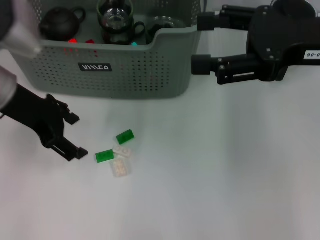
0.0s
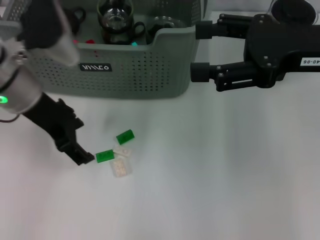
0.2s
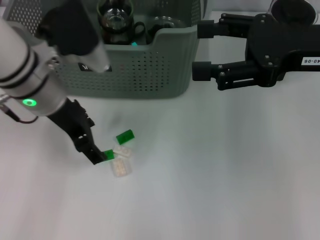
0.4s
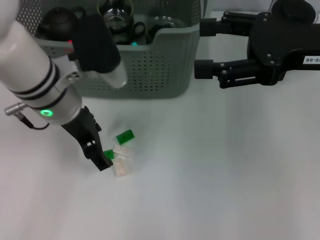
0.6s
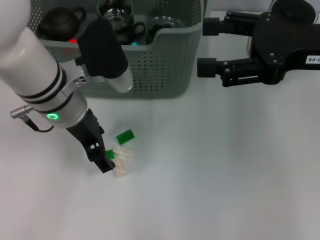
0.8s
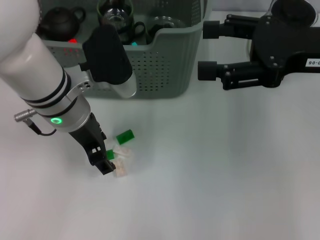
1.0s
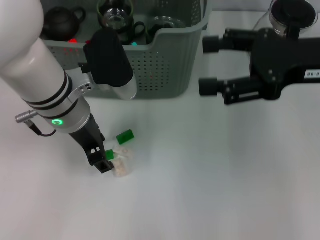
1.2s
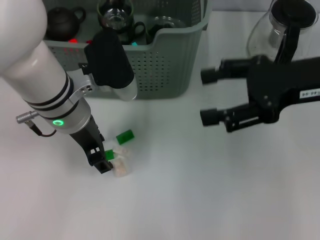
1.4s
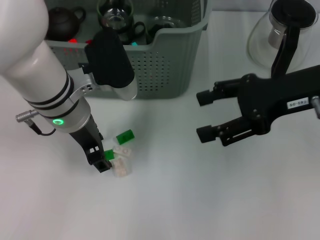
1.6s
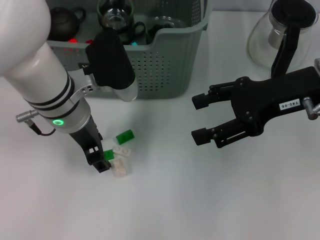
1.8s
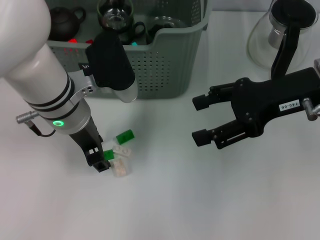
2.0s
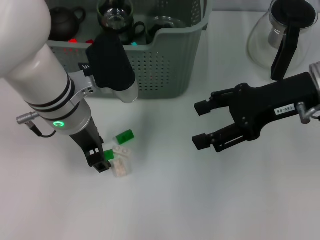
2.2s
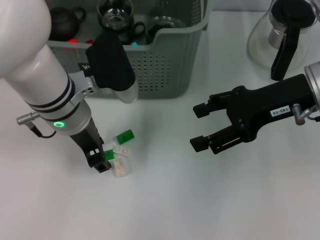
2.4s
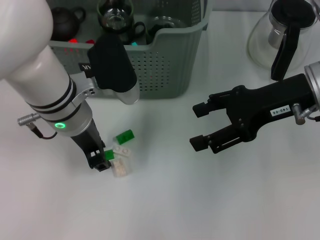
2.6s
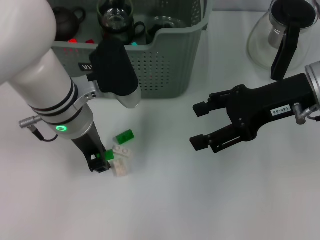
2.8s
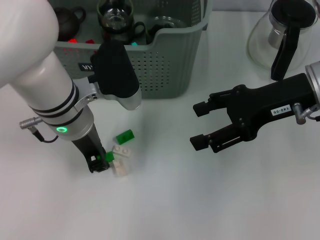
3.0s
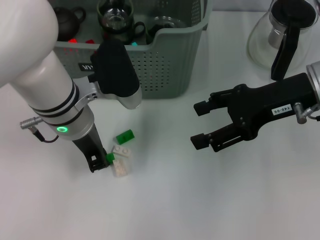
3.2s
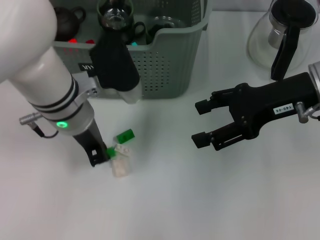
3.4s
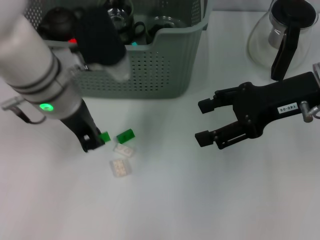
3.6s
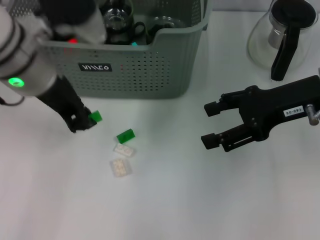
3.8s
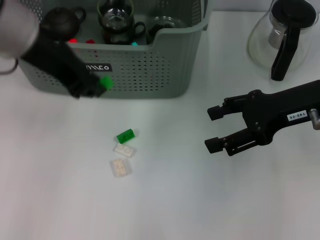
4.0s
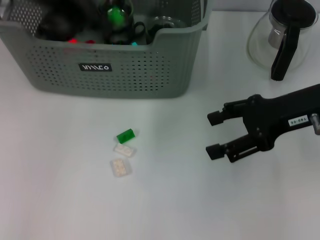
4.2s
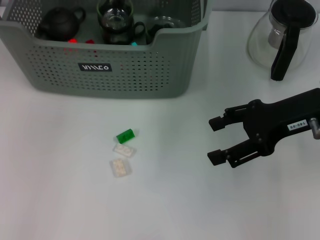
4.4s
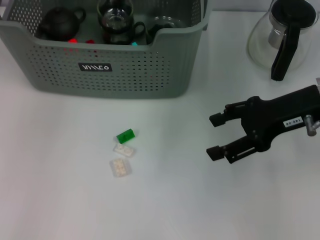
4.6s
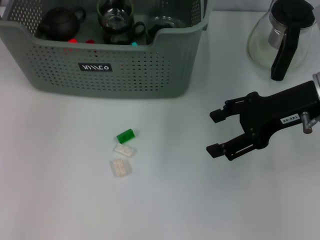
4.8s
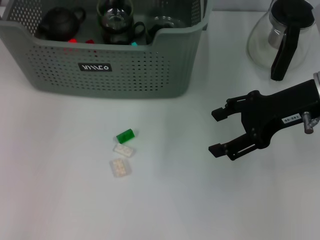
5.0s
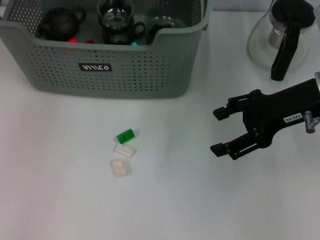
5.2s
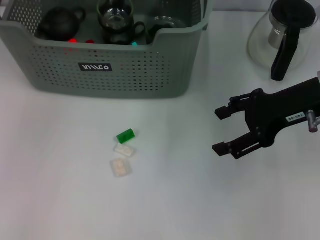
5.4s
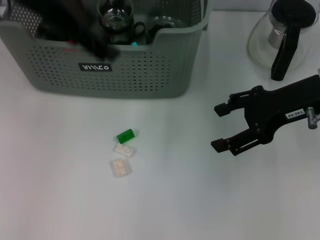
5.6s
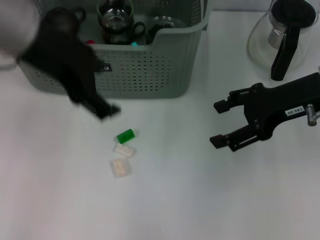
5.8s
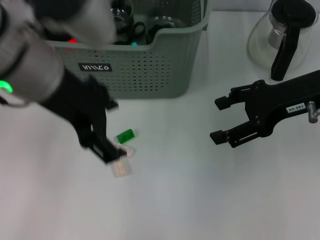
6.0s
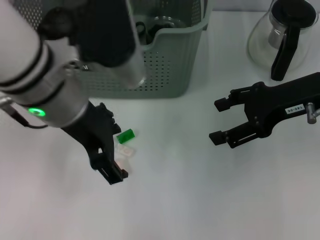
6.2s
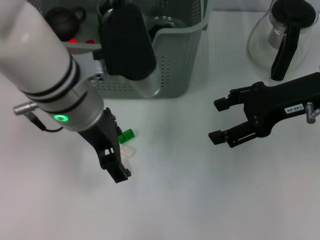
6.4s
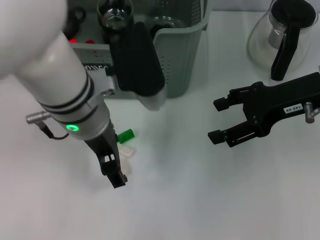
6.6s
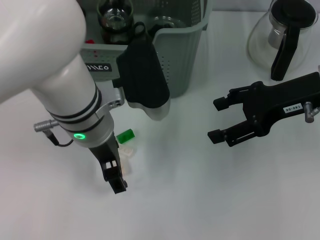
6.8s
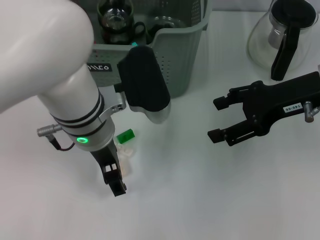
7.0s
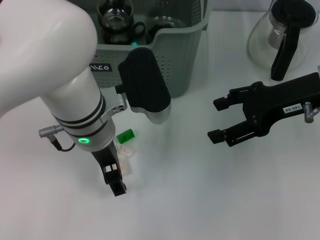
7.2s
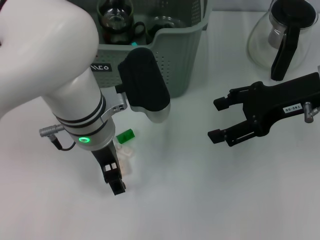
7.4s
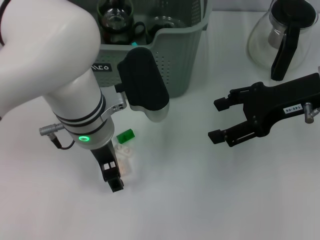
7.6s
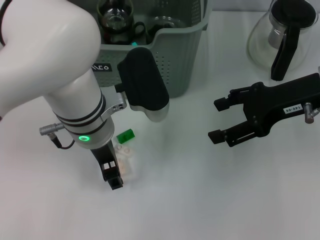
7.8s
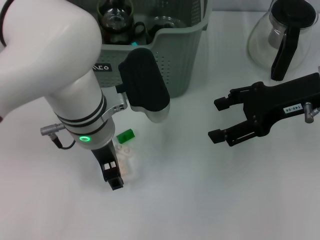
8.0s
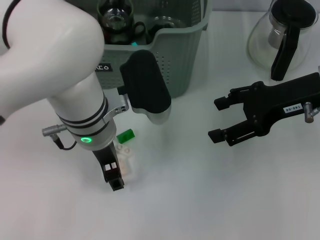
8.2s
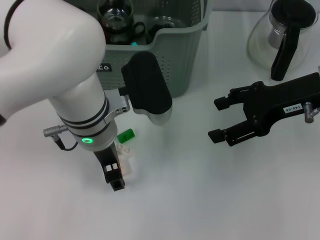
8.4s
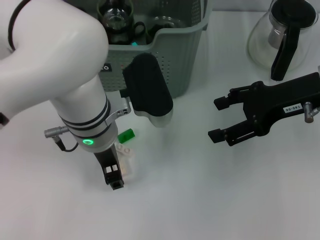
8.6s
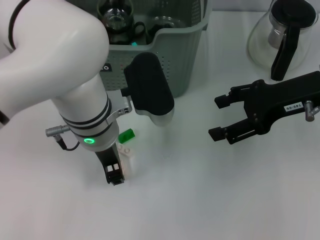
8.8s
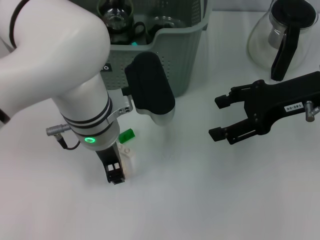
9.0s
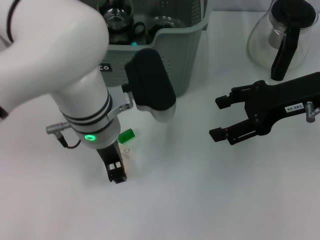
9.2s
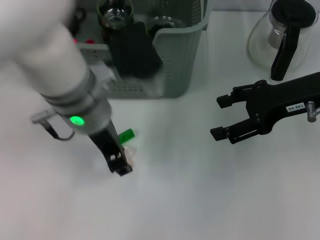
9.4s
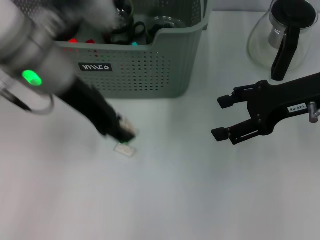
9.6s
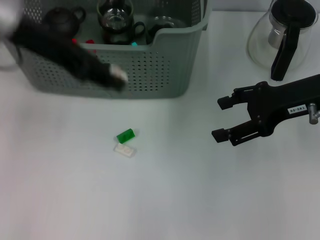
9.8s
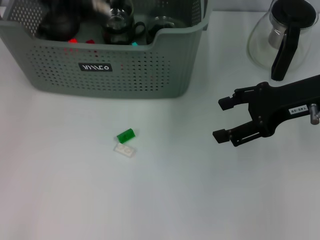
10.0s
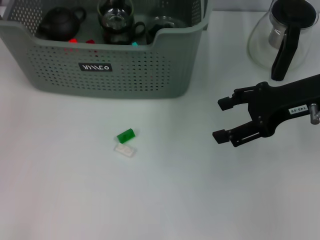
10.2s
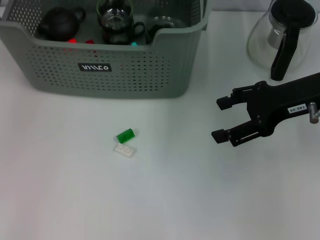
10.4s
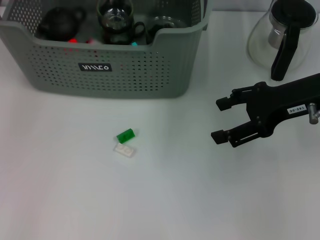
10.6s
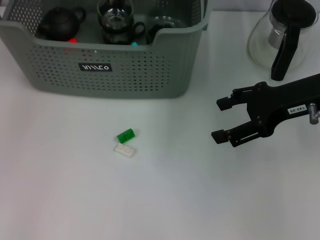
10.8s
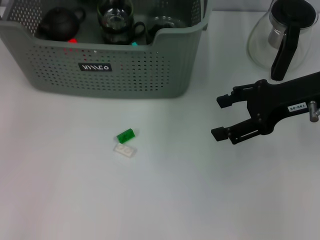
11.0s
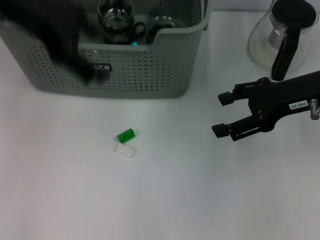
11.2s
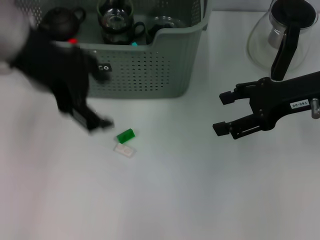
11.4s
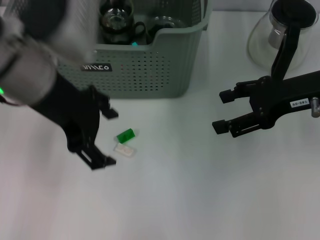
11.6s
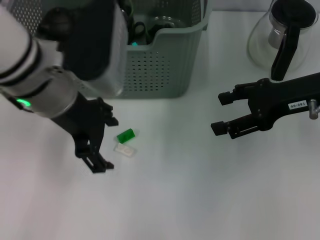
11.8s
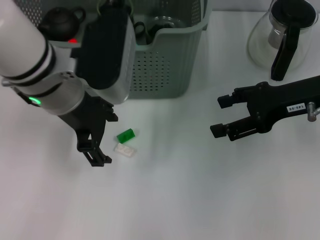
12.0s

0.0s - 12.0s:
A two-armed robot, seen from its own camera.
Task of the whole recording: pick up the teacup on the table and place it into the storage bin, pick up the block on the table and place it into the storage bin.
Step, 0.0s - 3.2s: Grasp the green block with left gripper.
Step, 3.4s - 4.8s: Place the green block in the storage box with left gripper.
Step, 5.2s - 9.0s: Grasp the white block with left gripper.
Step, 9.2s - 10.6s: Place the white block in the storage box with left gripper.
0.0s - 1.6s: The left gripper heads to the right, covering roughly 10 cm.
1.6s - 3.0s: The left gripper closes.
3.0s - 4.4s: The left gripper is displaced upward by approximately 20 cm.
4.4s - 6.0s: The left gripper heads backward and downward, covering roughly 15 cm, and opens its fingers.
6.0s - 7.6s: The left gripper moves downward and to the right, roughly 15 cm.
7.6s - 9.0s: The left gripper closes up.
9.0s - 10.4s: The left gripper shifts some 30 cm upward, to the left and forward.
10.4s - 12.0s: The left gripper goes approximately 20 cm downward, backward and to the right, and opens its fingers.

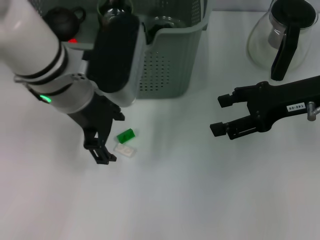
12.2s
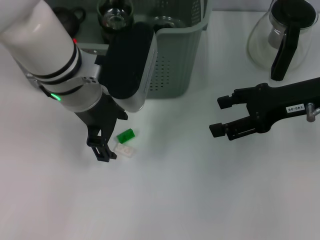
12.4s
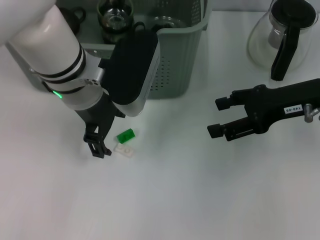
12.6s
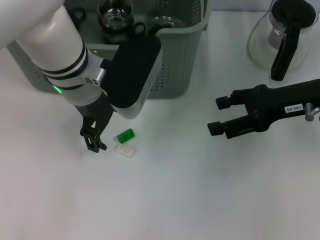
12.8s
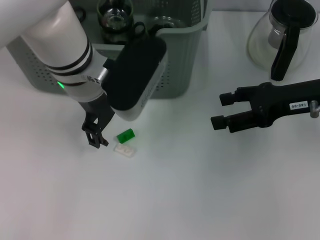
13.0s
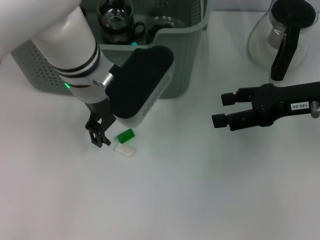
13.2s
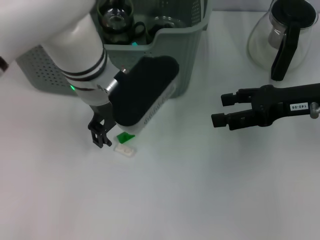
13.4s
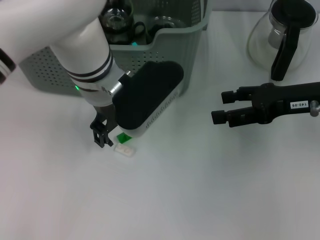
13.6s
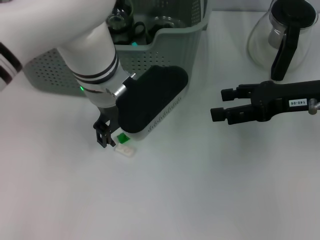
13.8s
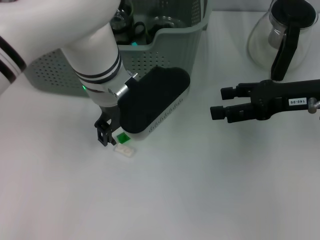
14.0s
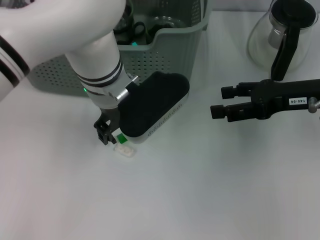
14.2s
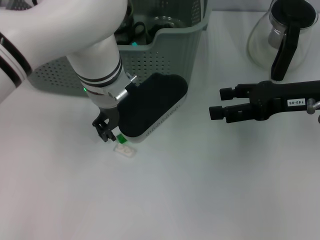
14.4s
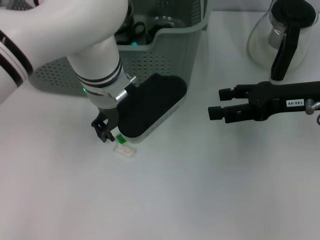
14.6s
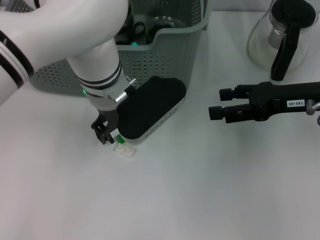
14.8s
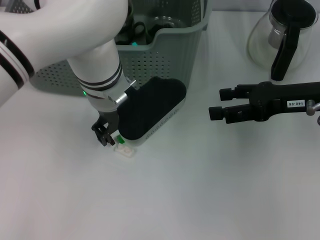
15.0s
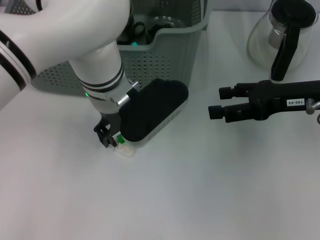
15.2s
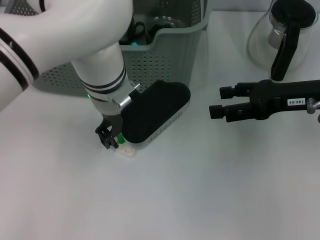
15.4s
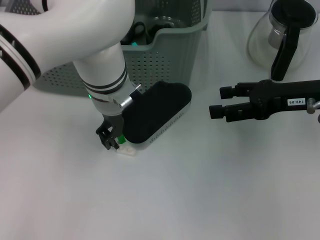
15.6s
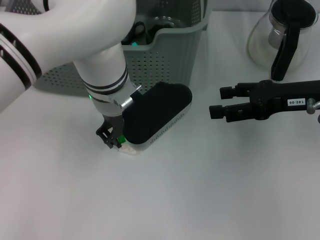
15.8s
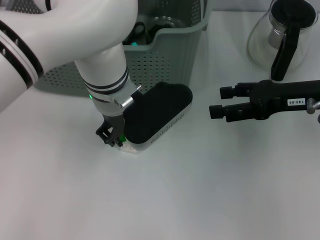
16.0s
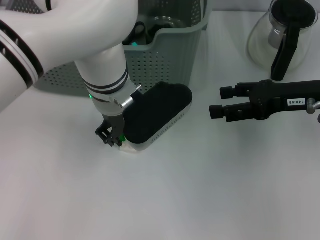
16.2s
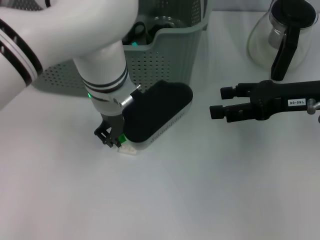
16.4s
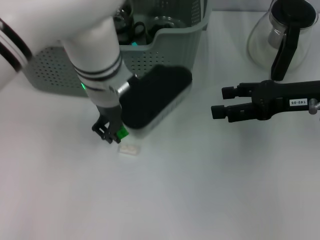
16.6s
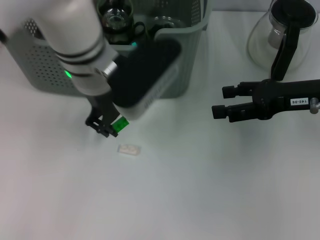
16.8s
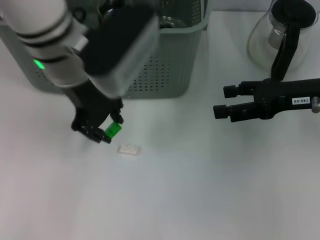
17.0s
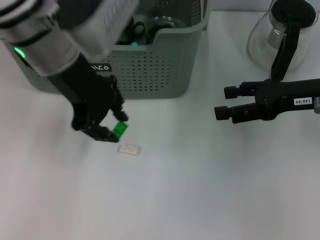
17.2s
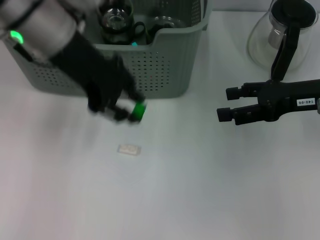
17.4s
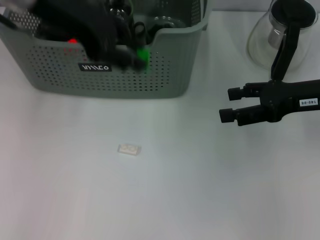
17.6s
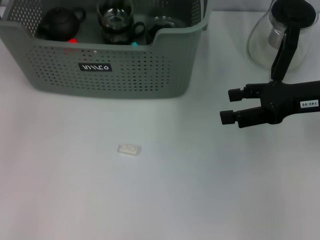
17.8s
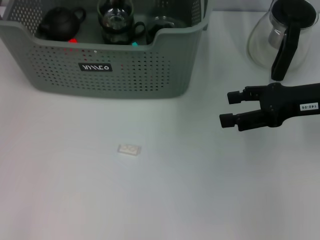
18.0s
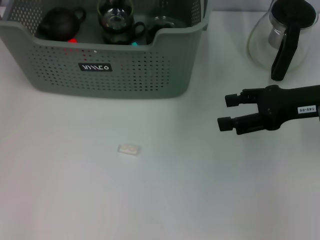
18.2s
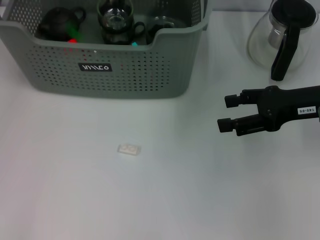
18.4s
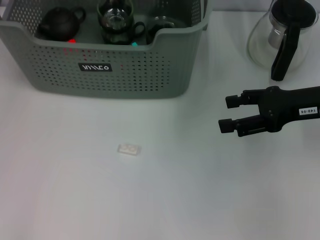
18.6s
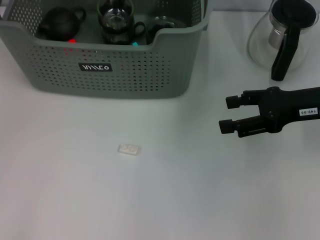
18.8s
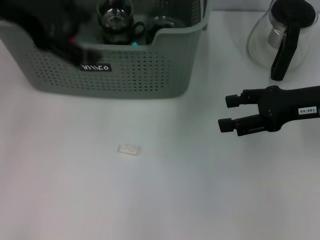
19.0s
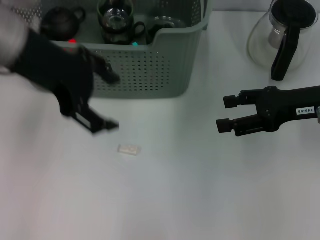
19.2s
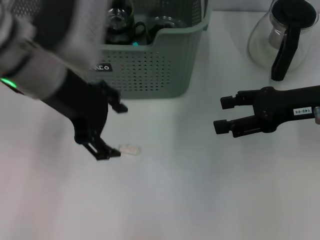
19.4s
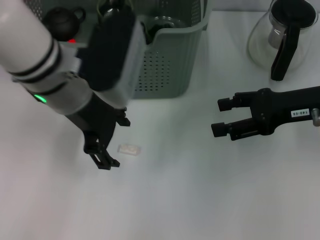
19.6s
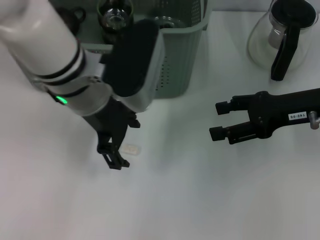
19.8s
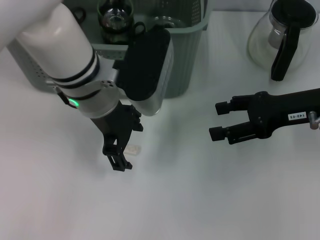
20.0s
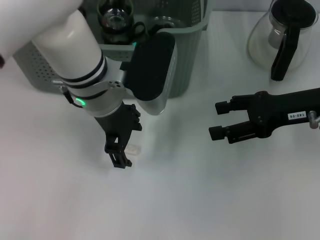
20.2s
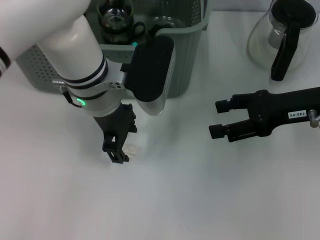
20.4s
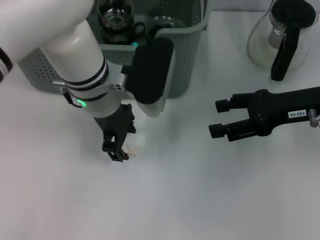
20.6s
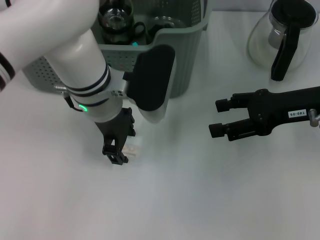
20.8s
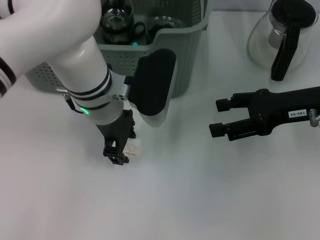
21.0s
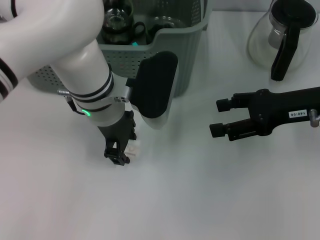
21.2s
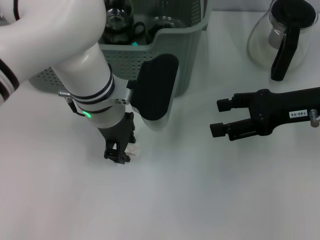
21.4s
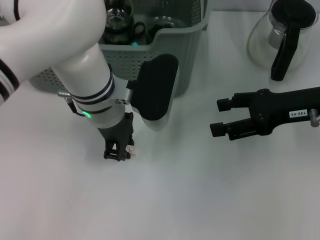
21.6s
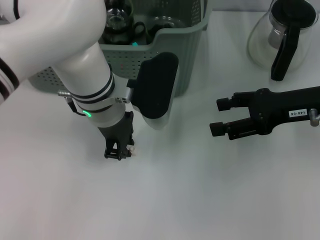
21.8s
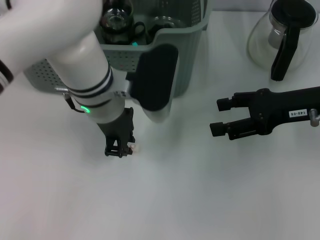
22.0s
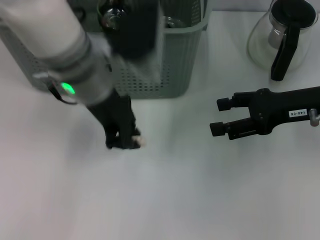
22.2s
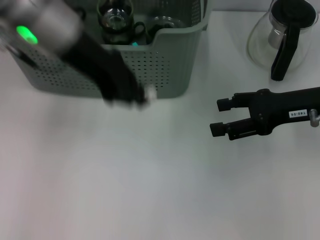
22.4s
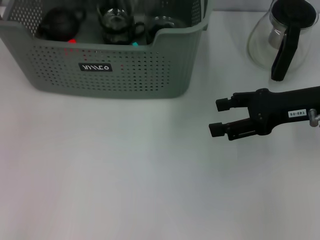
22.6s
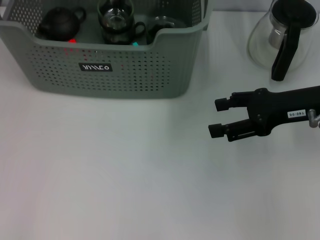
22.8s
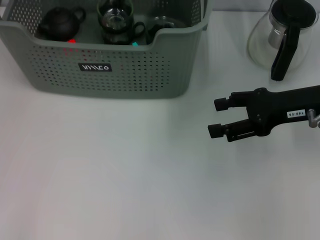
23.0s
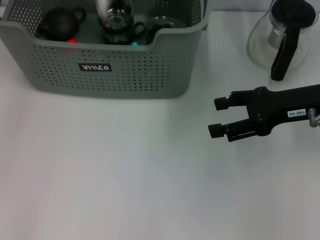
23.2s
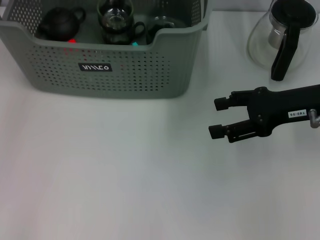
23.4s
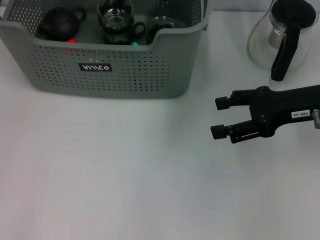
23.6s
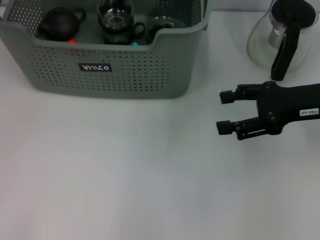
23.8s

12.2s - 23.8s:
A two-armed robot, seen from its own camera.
Task of the whole recording: pick up the teacup on the table and place it into the storage bin, pick up the block on the table and place it into the storage bin.
Step, 12.2s - 16.0s: Grasp the green block with left gripper.
Step, 16.2s - 18.4s: Place the green block in the storage box with left gripper.
Step, 18.6s - 21.6s: Grasp the white block with left gripper.
Step, 21.8s - 23.2s: Place the white block in the storage box with left gripper.
12.2s - 13.6s: The left gripper moves roughly 5 cm.
13.6s - 16.6s: There are only small adjustments of the grippers.
16.6s - 18.0s: The left gripper heads to the left, upward and forward, covering some 25 cm.
18.0s - 19.4s: The left gripper moves to the right, backward and downward, approximately 20 cm, and opens up.
19.4s - 21.0s: The left gripper shifts approximately 10 cm downward and to the right.
21.0s - 22.4s: The left gripper shifts approximately 15 cm upward and to the left, and closes its fingers.
22.4s - 23.8s: The left gripper moves to the left, about 10 cm, and opens.
